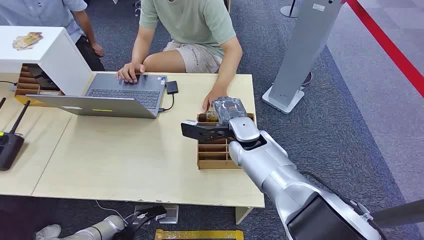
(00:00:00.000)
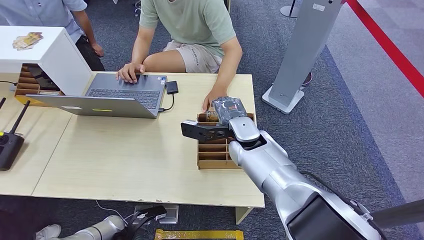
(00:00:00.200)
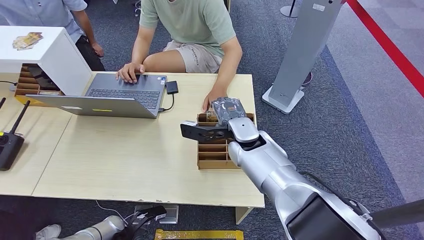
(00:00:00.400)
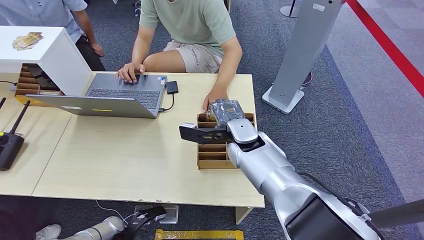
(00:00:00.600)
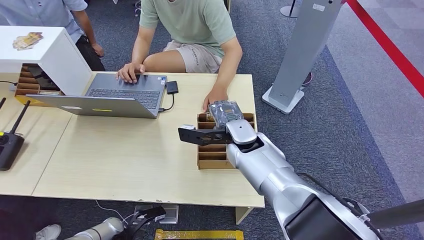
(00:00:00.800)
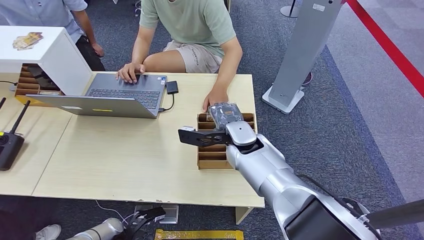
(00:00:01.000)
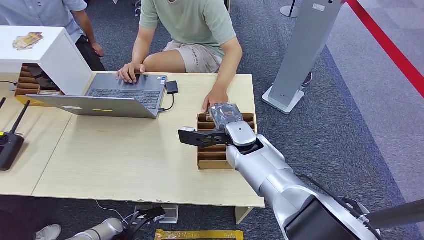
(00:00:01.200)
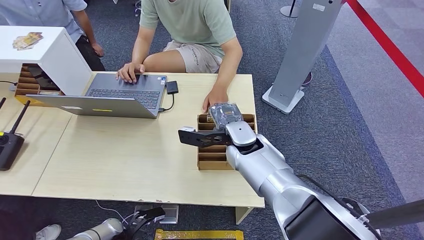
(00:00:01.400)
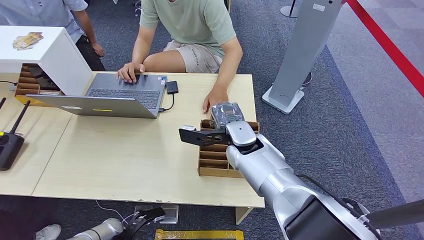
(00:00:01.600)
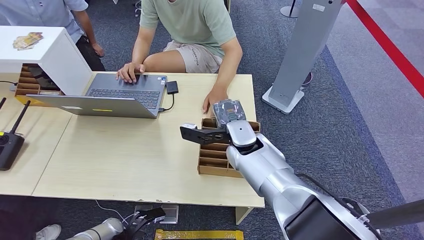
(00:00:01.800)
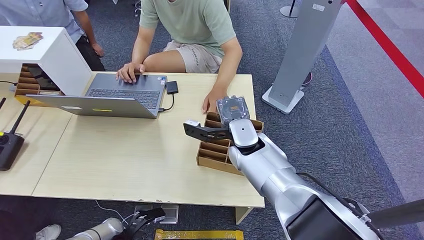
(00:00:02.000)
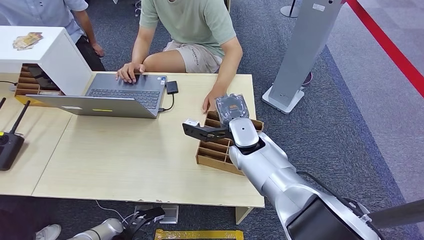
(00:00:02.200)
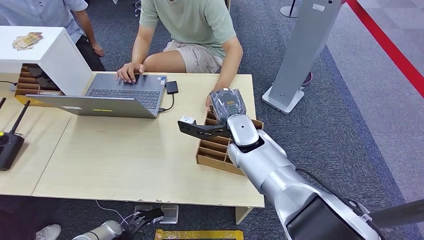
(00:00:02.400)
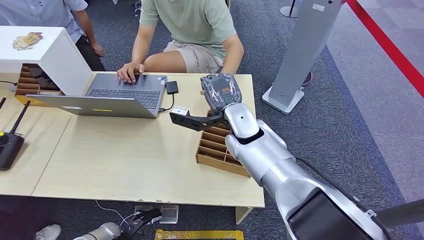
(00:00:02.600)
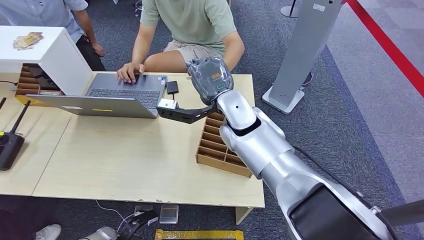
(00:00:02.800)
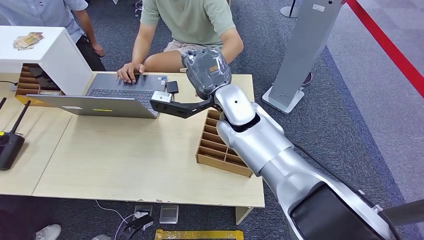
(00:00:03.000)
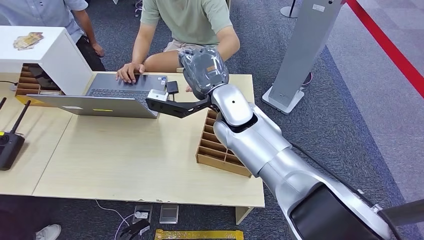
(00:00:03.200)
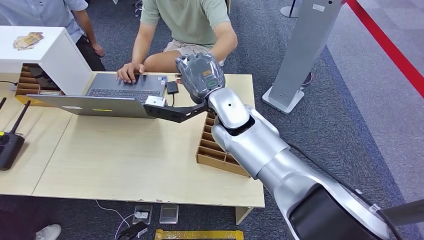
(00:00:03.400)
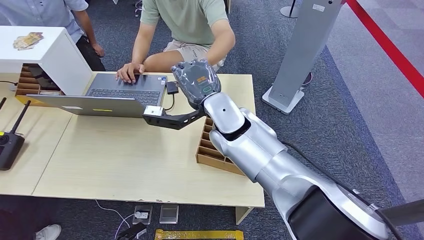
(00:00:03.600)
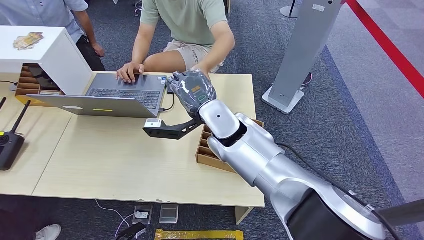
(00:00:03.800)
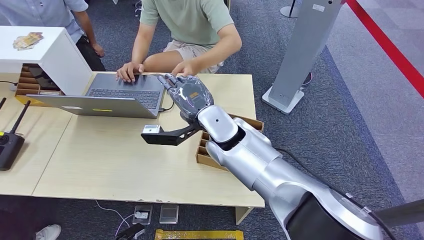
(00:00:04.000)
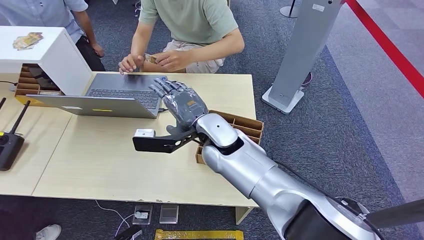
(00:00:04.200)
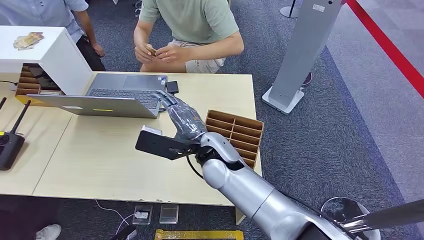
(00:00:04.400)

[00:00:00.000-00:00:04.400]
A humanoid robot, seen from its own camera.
Task of the whole recording: Pick up the card and hand it over to the target person.
Step, 00:00:00.000 to 00:00:02.600: Pick up the key card from the card box.
Step, 00:00:03.600 to 00:00:04.200: Hand the key card to the target.
00:00:01.400 to 00:00:03.000: The right hand shifts about 15 cm upward and to the left. Meanwhile the left hand heads backward, covering some 10 cm.
